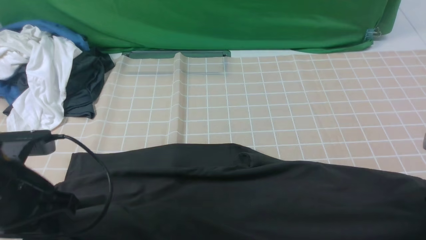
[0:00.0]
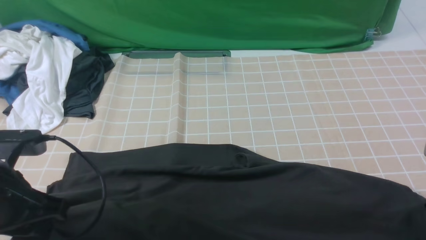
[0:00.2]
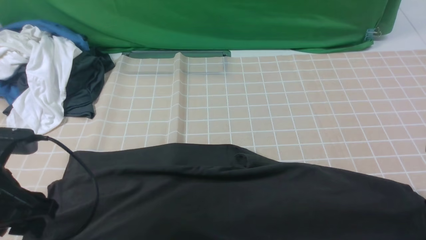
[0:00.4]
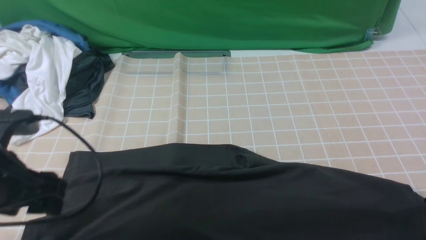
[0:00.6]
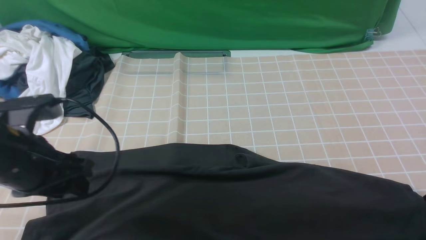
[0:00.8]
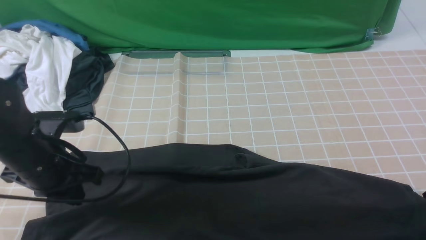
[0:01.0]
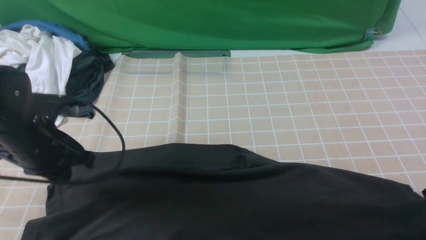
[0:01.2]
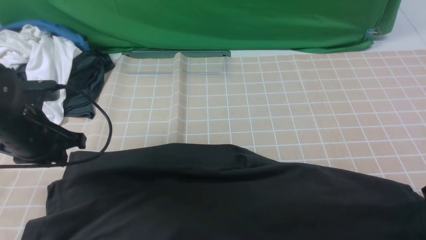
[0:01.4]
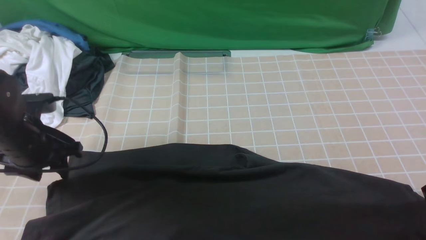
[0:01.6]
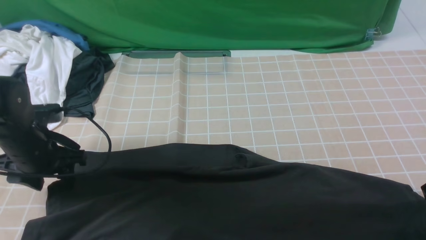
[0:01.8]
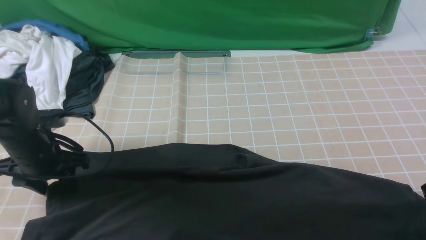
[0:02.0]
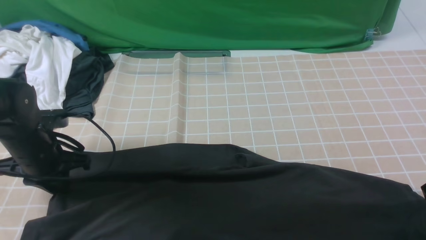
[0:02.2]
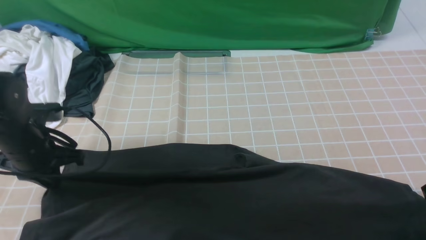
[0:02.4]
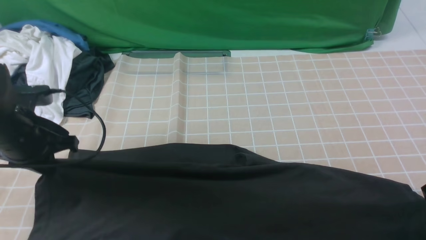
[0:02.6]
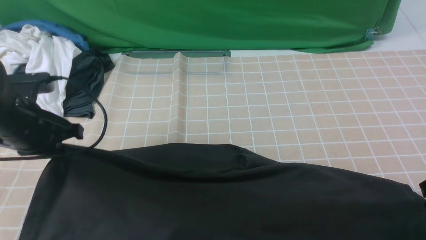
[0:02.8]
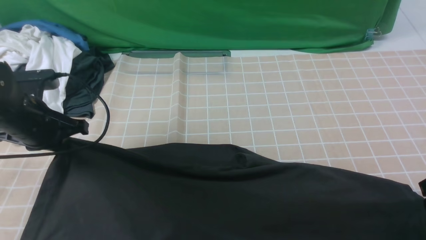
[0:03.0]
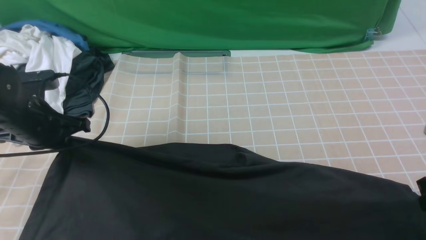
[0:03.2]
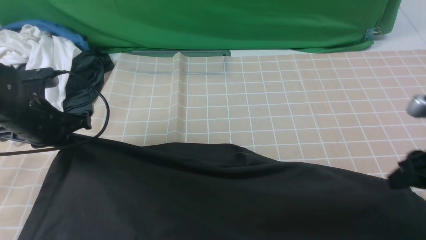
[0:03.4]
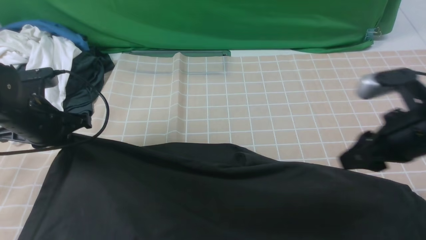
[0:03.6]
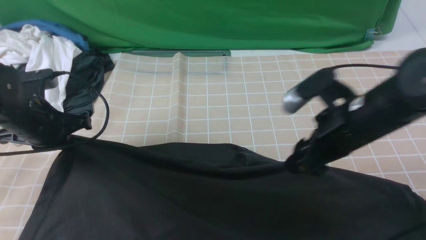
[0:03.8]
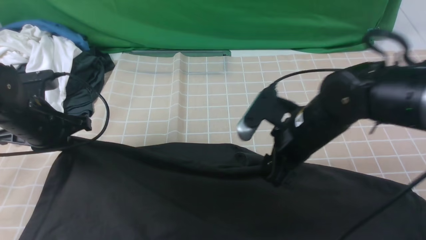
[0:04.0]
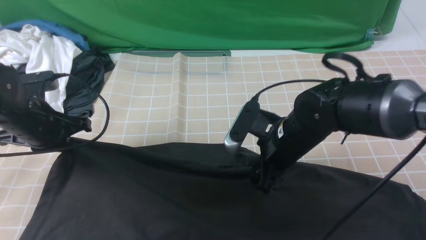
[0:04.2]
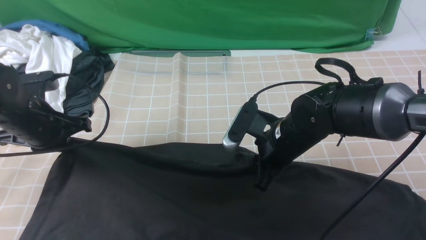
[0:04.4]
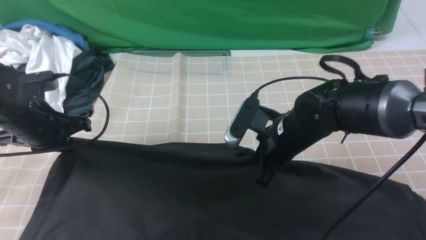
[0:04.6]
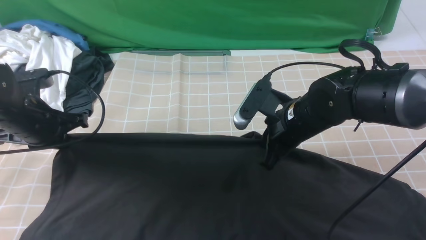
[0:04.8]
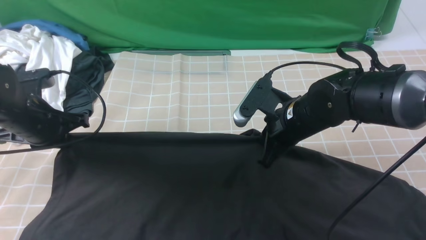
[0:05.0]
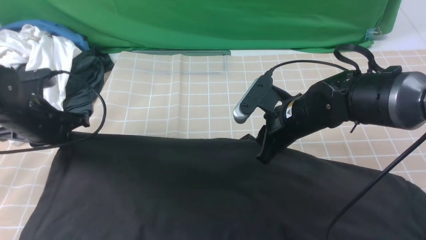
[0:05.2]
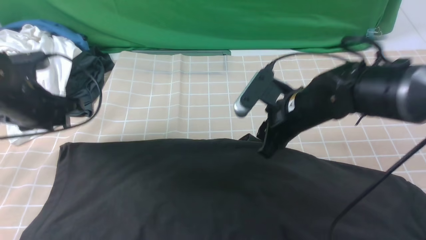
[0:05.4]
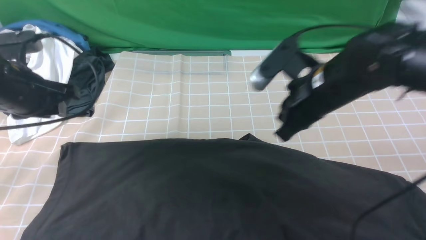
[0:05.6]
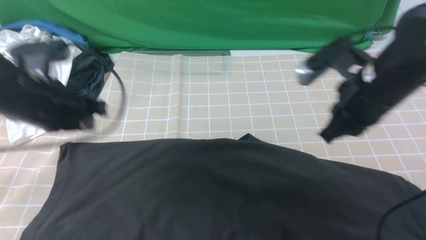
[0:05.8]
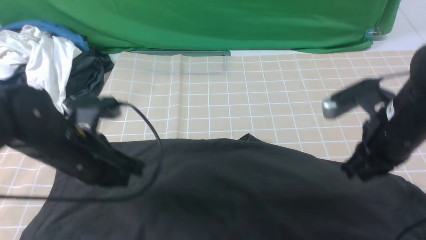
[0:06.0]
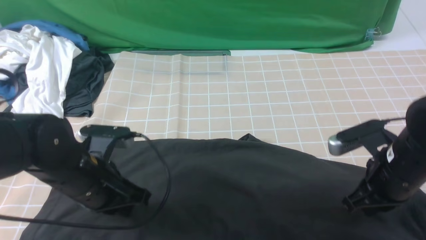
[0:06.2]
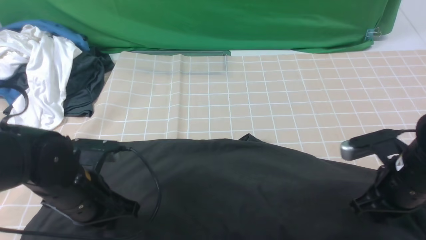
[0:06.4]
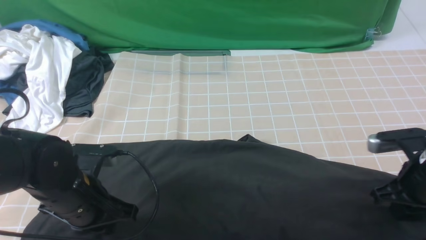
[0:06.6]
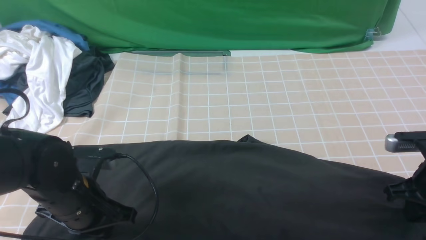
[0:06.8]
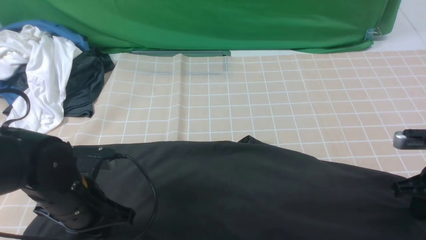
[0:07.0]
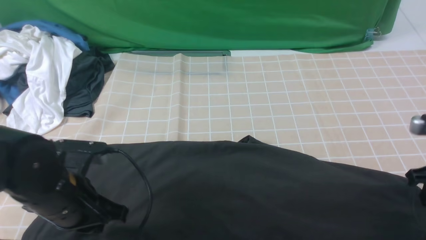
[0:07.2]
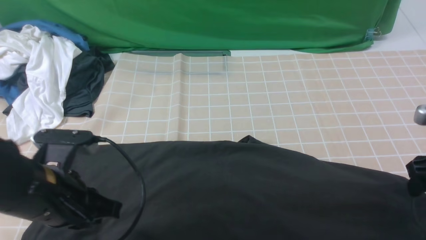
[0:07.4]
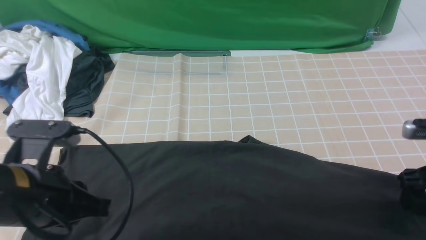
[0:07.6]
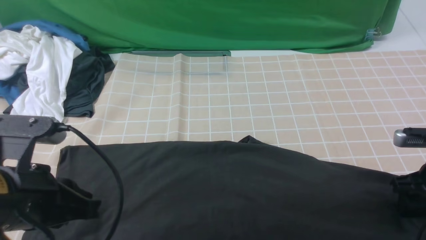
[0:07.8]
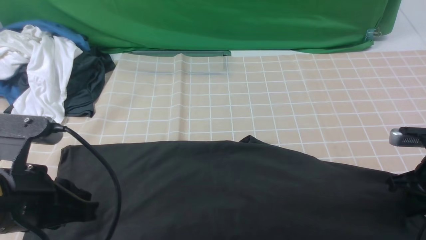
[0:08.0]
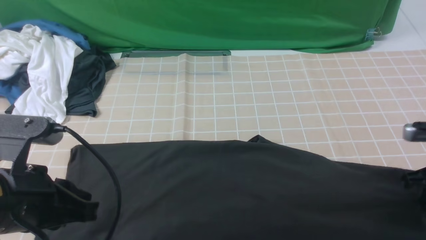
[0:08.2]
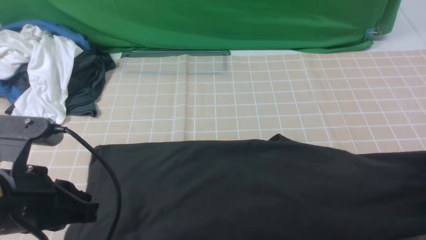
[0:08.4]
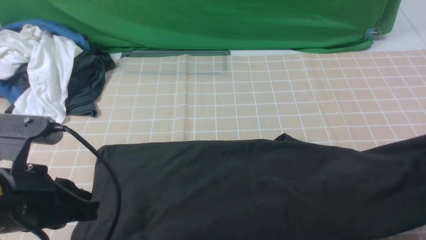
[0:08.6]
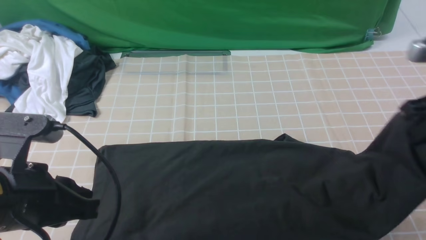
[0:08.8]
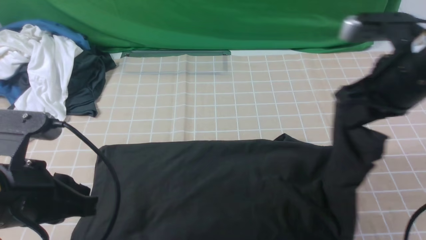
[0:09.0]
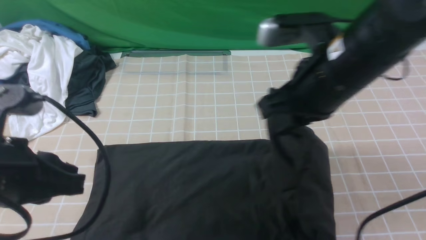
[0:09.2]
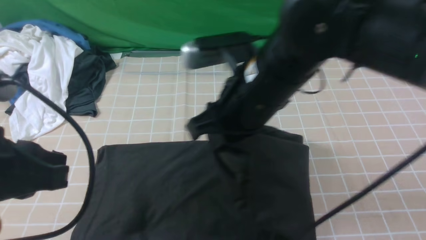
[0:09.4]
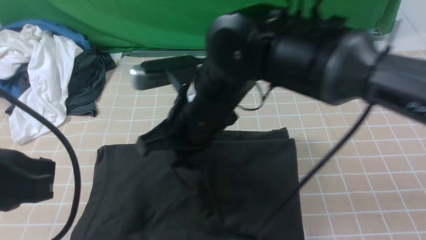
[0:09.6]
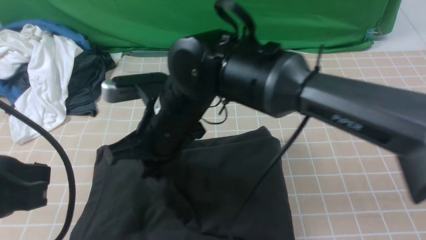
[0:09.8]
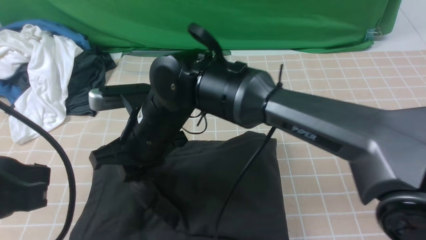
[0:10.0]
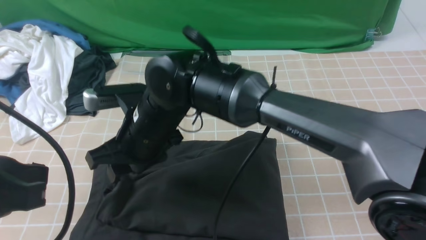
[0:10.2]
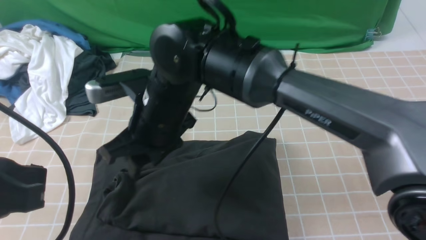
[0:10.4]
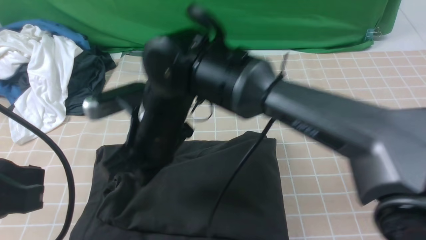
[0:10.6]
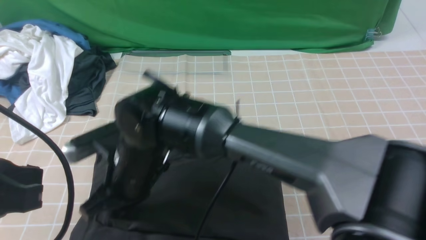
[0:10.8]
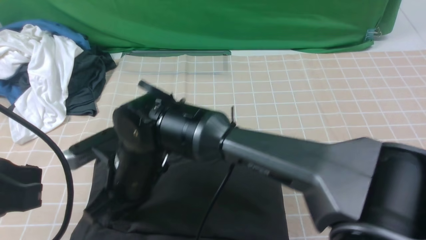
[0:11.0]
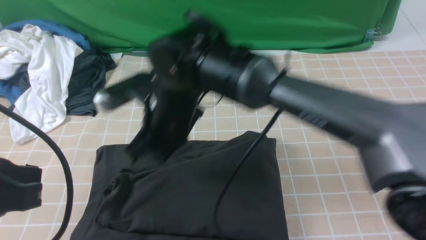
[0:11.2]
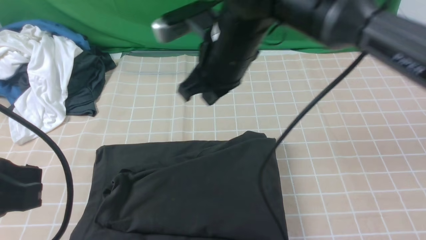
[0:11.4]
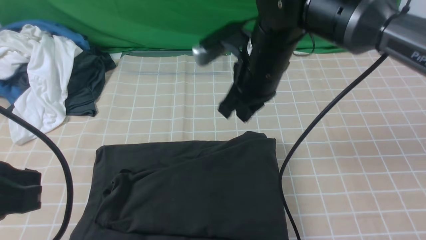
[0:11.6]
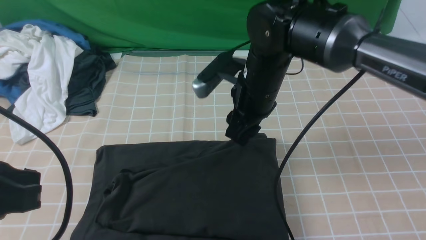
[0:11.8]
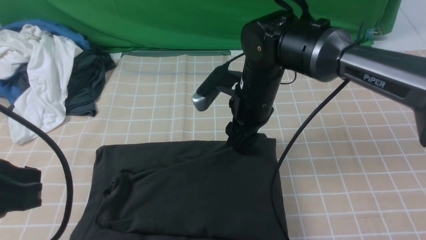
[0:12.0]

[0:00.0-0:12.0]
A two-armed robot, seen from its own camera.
Step, 0:00.0 to 0:05.4: use both arms to drag the lower edge of the fabric forward and fold it over the upper edge.
Step, 0:05.6 to 0:08.0: use the right arm to clamp the right edge of the fabric.
Step, 0:08.2 to 0:10.2: use the right arm to drag the right edge of the fabric to the left and folds it over the left edge.
0:00.0 to 0:01.6: The left gripper travels forward and downward by roughly 10 cm, and opens its fingers.
0:01.6 to 0:03.0: The left gripper closes.
0:03.0 to 0:04.4: The right gripper moves to the left and forward, approximately 25 cm, and opens and closes again.
0:04.4 to 0:06.0: The right gripper is displaced to the right and upward by some 15 cm, and closes. Meanwhile the left gripper travels to the right and backward by about 10 cm, and opens and closes again.
0:06.0 to 0:07.6: The left gripper travels backward by approximately 10 cm. The right gripper travels to the right and downward by roughly 15 cm, and opens.
0:07.6 to 0:09.0: The right gripper shifts roughly 20 cm upward and to the left, and closes its fingers.
0:09.0 to 0:10.4: The left gripper travels upward by some 5 cm. The right gripper goes approximately 30 cm to the left.
0:10.4 to 0:12.0: The right gripper moves to the right and forward, approximately 15 cm, and closes, then reopens.

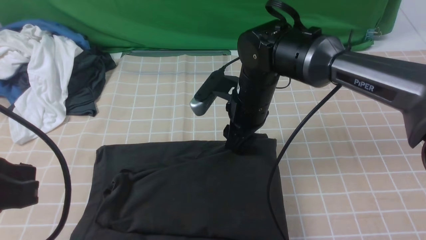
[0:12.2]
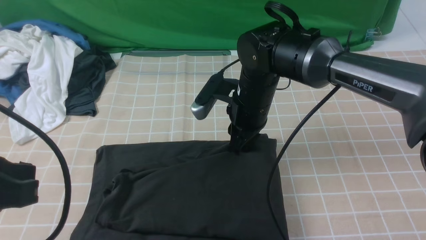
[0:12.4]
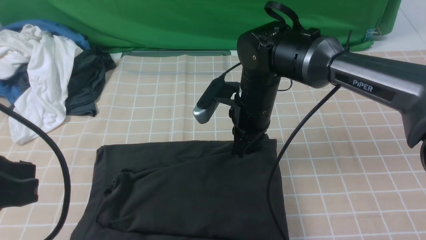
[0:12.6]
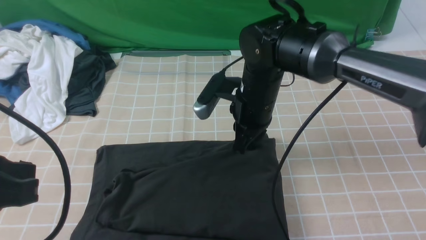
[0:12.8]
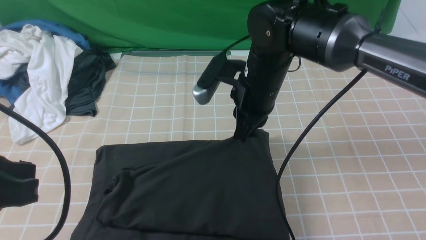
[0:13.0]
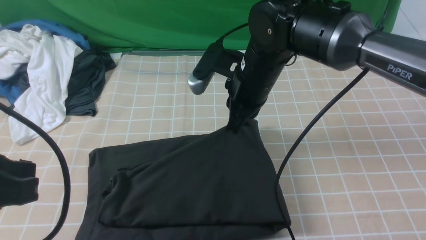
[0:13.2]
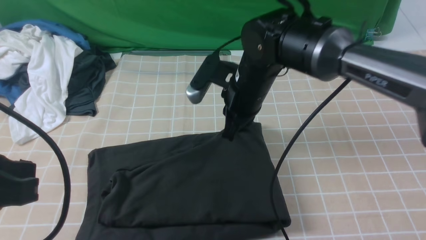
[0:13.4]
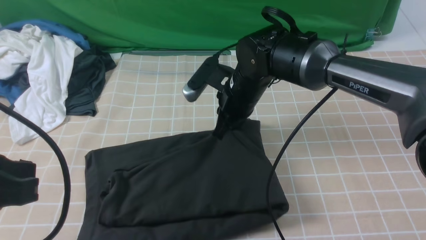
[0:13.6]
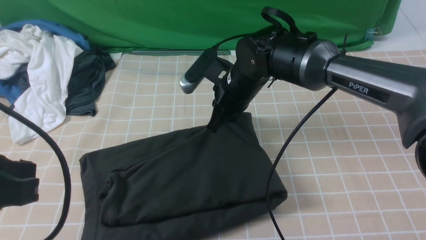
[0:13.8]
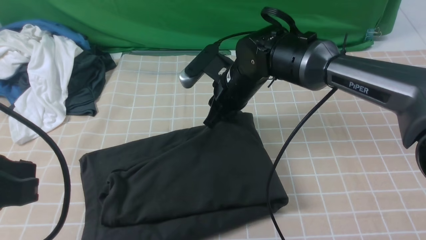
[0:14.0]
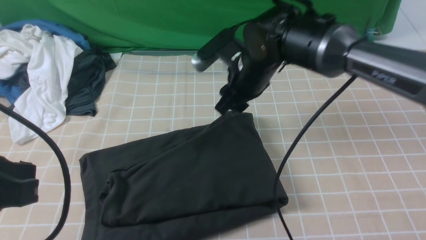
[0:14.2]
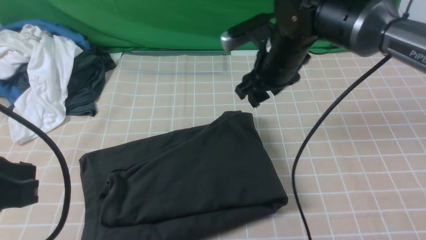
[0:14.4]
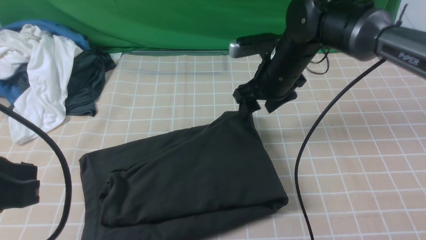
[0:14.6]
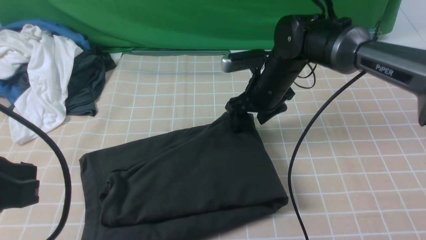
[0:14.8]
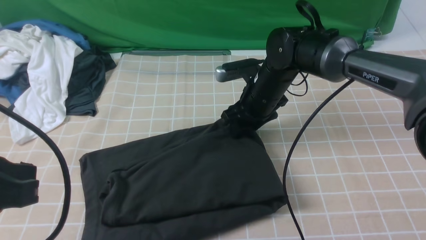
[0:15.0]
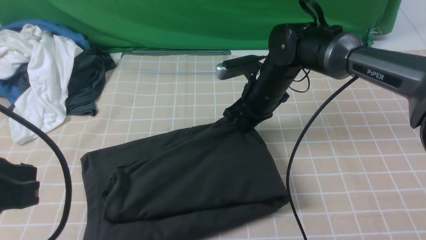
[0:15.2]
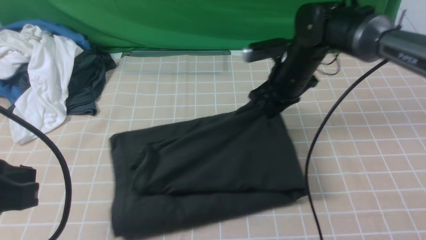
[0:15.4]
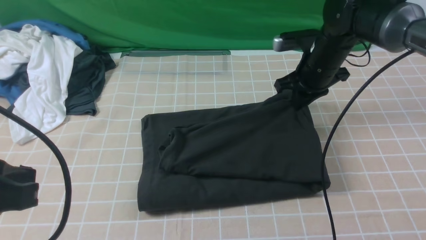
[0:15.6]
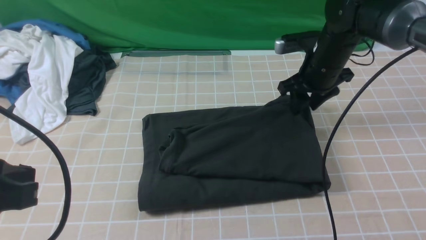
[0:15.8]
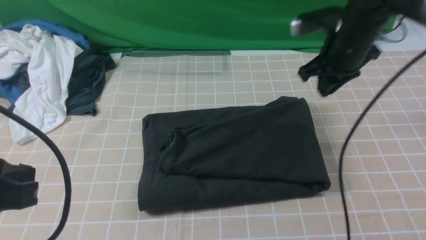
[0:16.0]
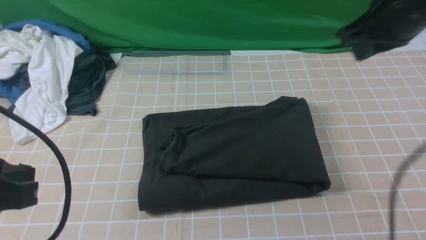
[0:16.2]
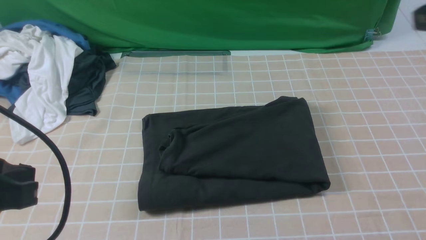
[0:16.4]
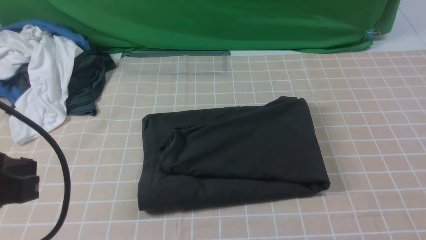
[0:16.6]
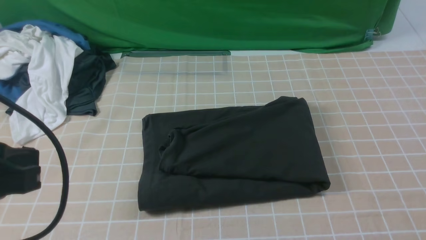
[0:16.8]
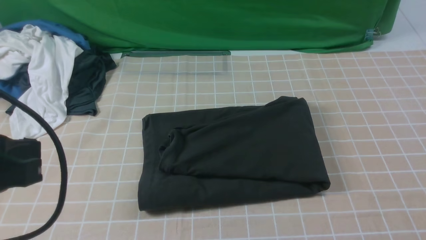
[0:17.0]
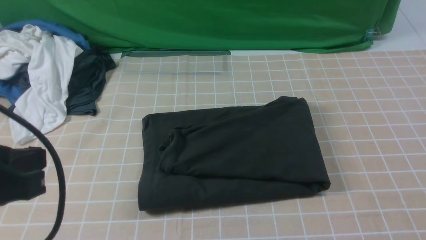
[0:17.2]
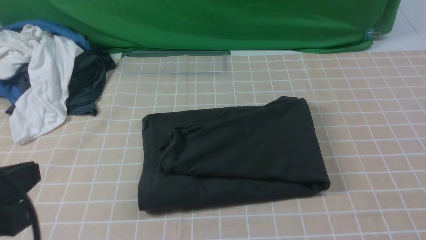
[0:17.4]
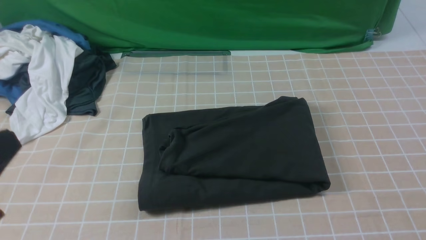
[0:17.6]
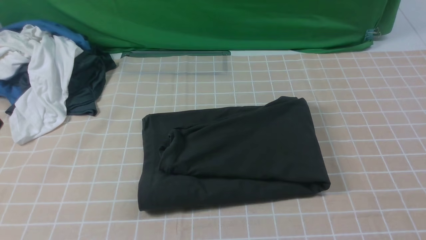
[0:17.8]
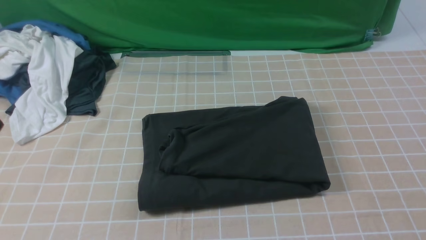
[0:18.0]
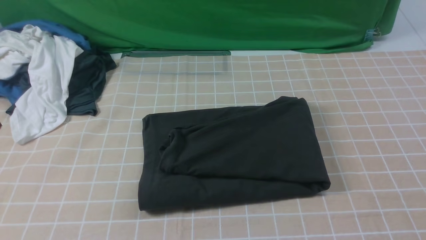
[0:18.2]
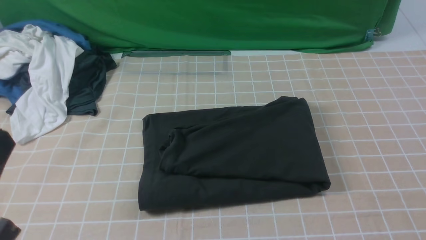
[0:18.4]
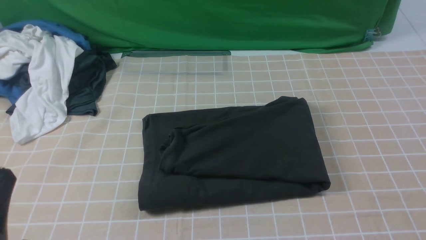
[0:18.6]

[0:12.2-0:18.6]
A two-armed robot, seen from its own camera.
0:12.2 to 0:13.8: The right gripper closes its fingers.
0:13.8 to 0:15.4: The right gripper is displaced to the right by some 10 cm, and opens, then closes once more.
0:15.4 to 0:17.0: The right gripper is displaced backward and to the right by roughly 40 cm.
0:17.0 to 0:18.6: The left gripper is displaced downward and backward by about 10 cm.
